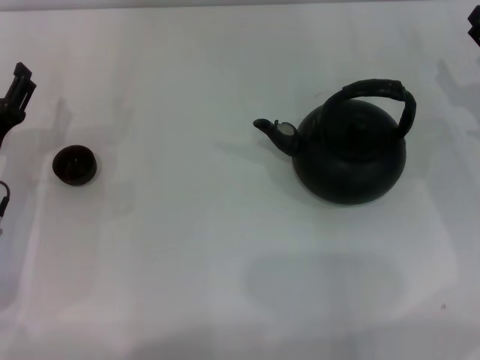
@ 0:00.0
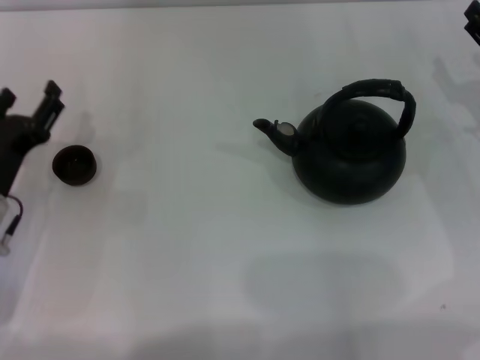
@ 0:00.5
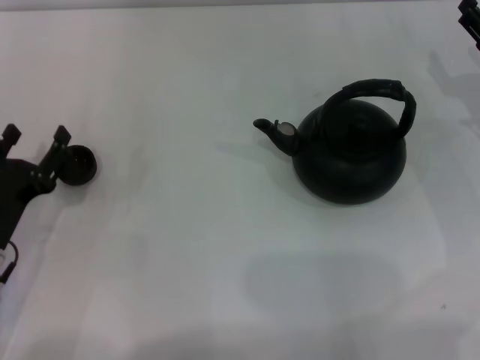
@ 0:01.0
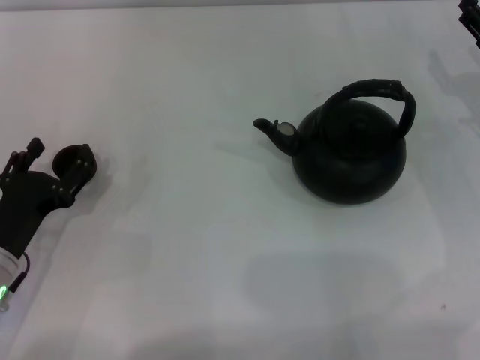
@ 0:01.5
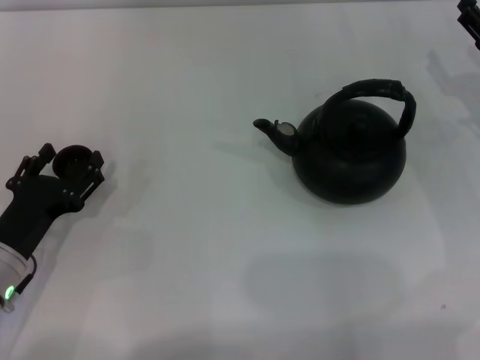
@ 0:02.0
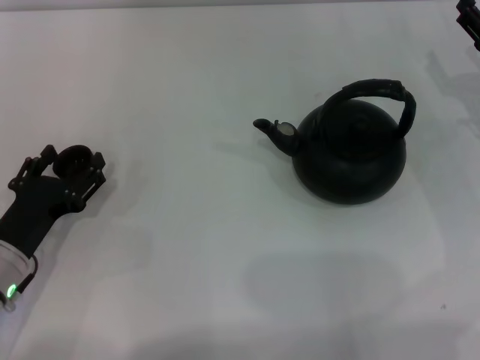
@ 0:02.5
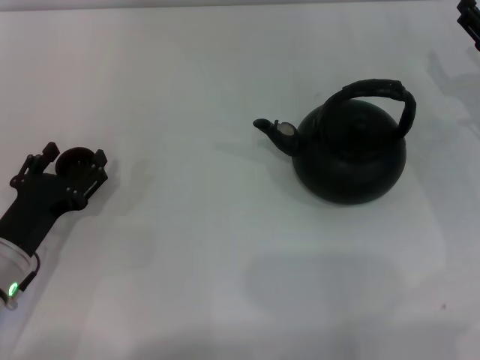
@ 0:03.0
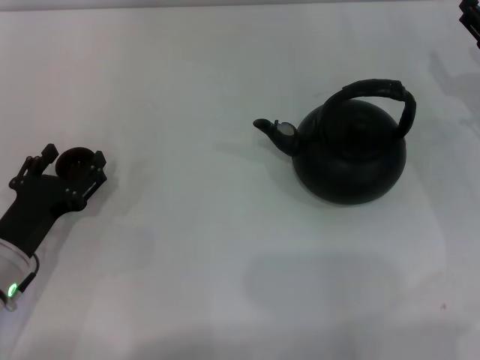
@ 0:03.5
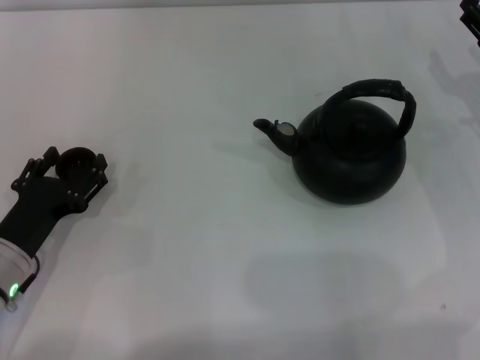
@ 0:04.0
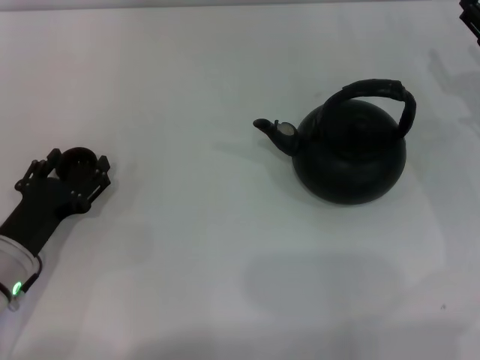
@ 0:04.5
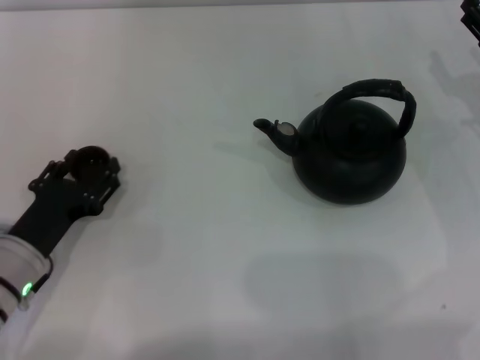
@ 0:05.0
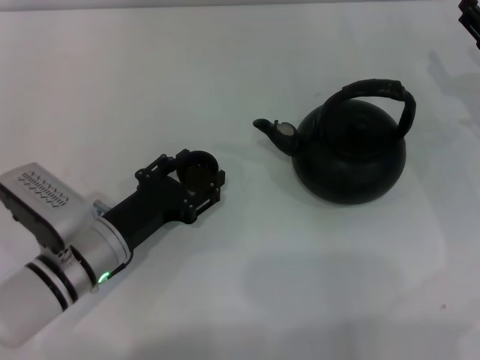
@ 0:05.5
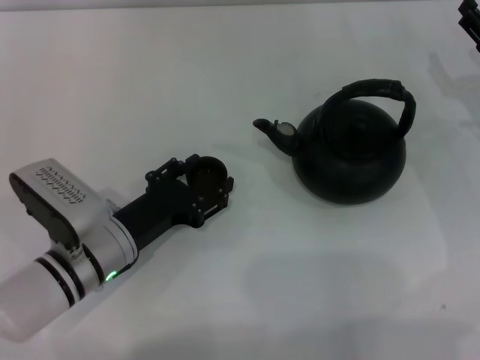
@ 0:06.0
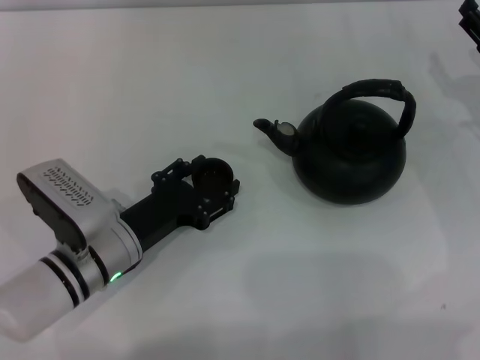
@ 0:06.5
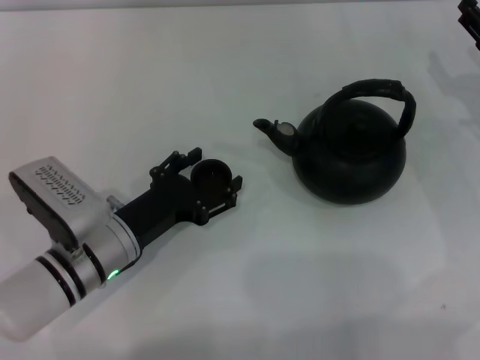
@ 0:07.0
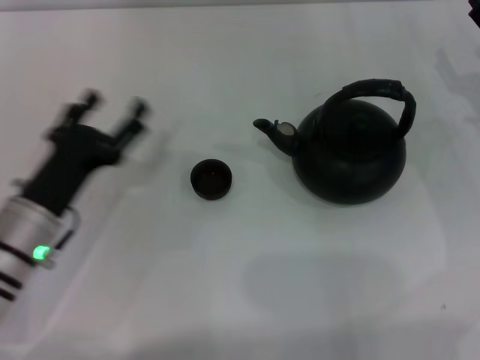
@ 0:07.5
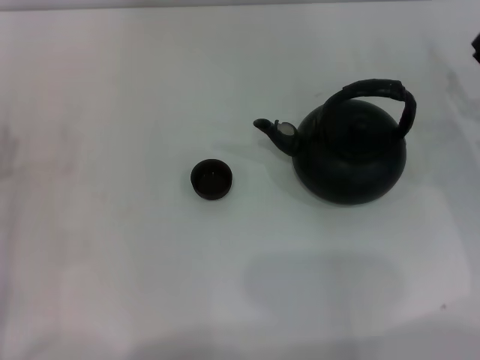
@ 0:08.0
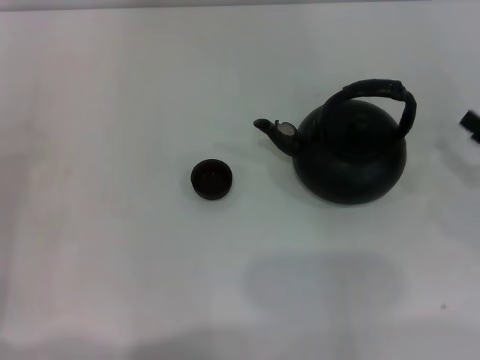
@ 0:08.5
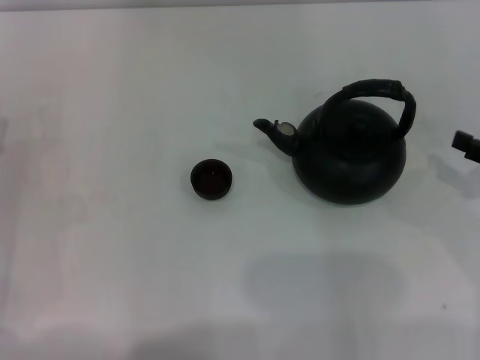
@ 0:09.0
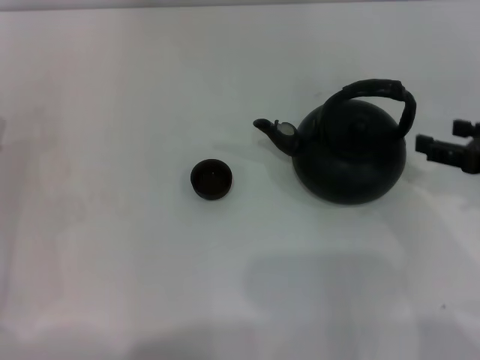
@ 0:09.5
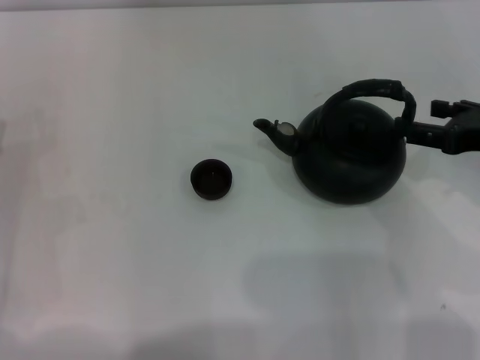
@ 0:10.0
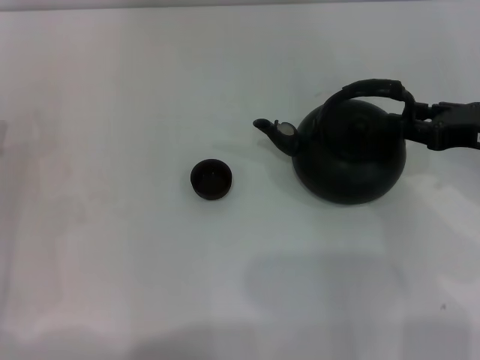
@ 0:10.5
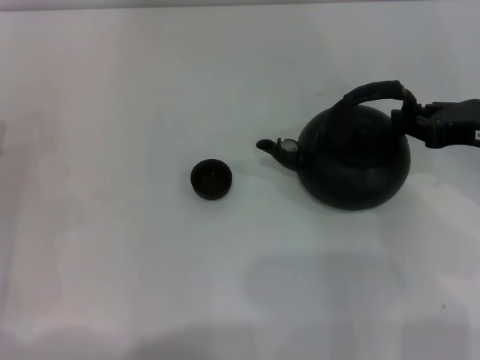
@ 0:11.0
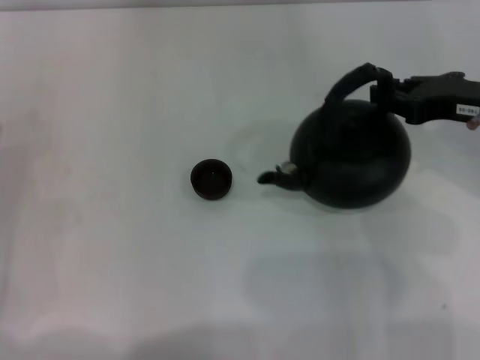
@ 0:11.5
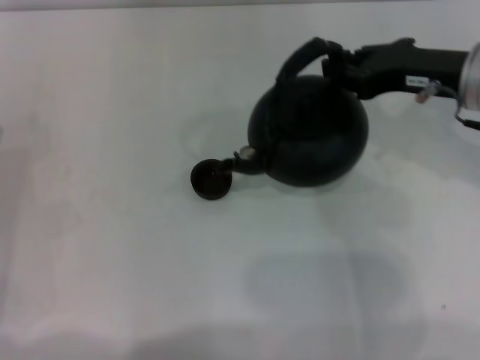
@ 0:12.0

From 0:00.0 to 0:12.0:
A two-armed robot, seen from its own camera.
Task of the whole recording: Grasp the handle of the teapot with one hand and pour tea into the teacup.
Step, from 0:00.0 to 0:05.0: Pick up the teacup with the left gripper.
Step, from 0:06.0 to 0:07.0: Place the teacup in the center of view with the left gripper.
Step, from 0:07.5 to 0:11.5: Pick up the teapot with the right gripper.
From 0:00.0 to 0:02.0: The left gripper heads backward, covering about 5 cm.
From 0:02.0 to 0:04.0: Neither gripper changes place.
From 0:04.0 to 0:06.0: The left gripper travels to the right by roughly 10 cm, and closes.
From 0:06.0 to 0:08.0: The left gripper is displaced to the left by about 15 cm, and opens.
From 0:08.0 to 0:10.0: The right gripper goes some 10 cm upward.
From 0:10.0 to 0:12.0: The right gripper is displaced to the left and forward by some 10 cm, and closes.

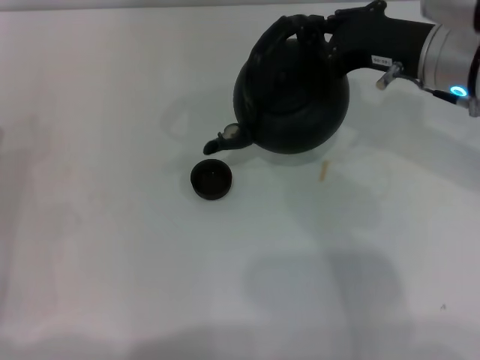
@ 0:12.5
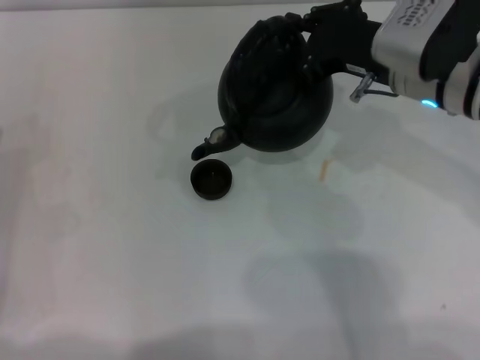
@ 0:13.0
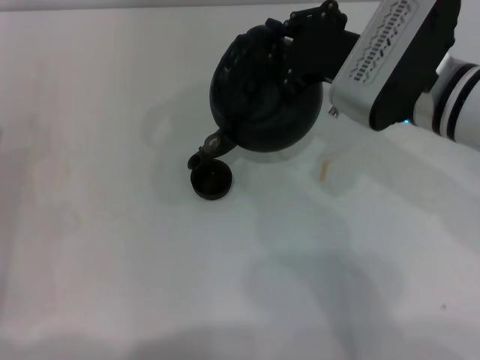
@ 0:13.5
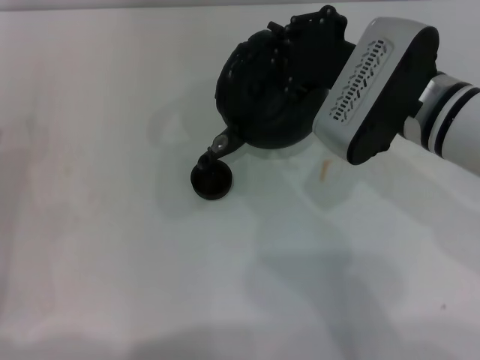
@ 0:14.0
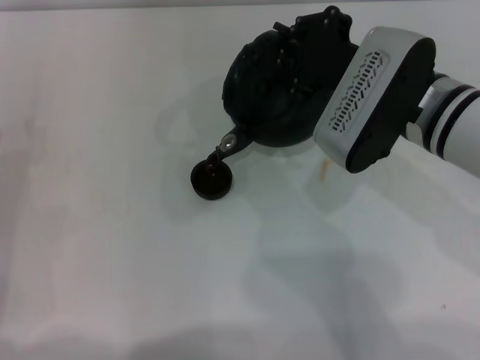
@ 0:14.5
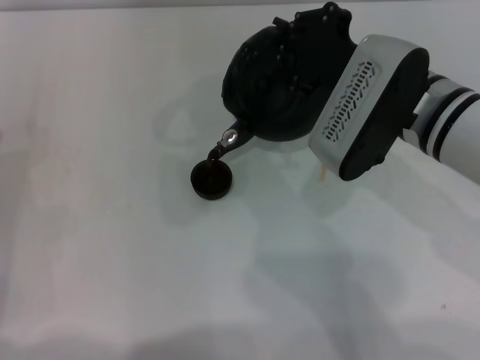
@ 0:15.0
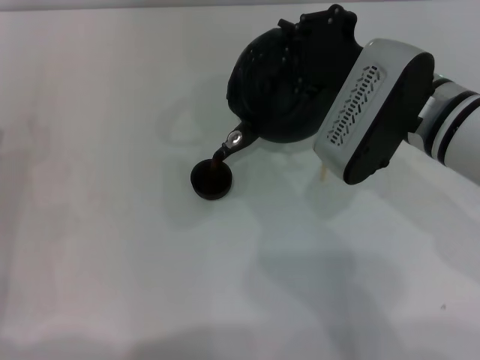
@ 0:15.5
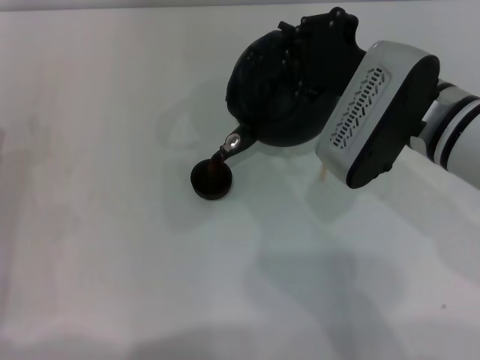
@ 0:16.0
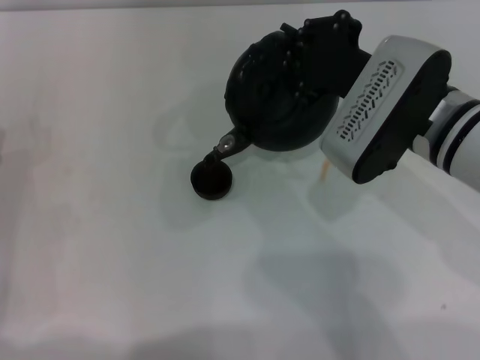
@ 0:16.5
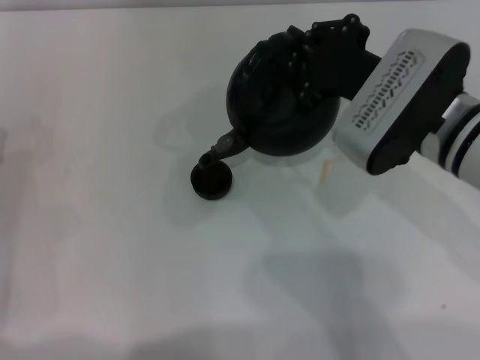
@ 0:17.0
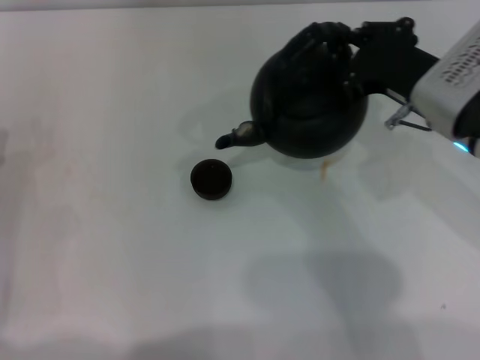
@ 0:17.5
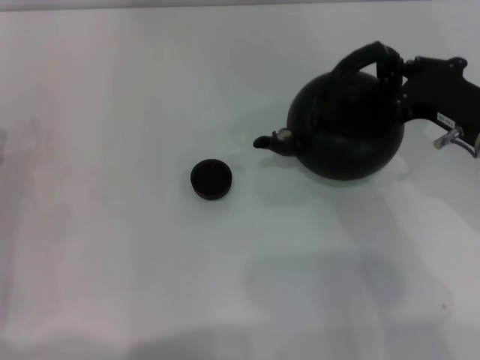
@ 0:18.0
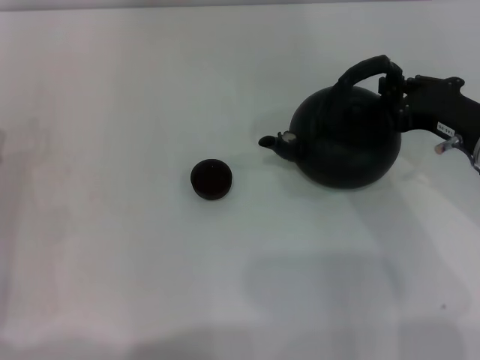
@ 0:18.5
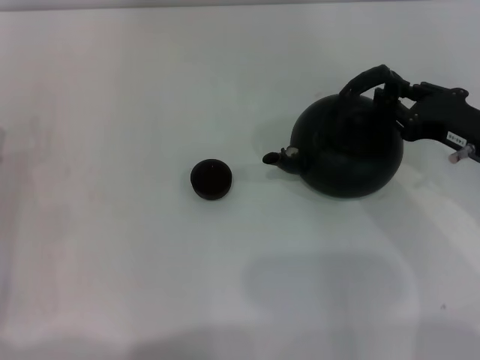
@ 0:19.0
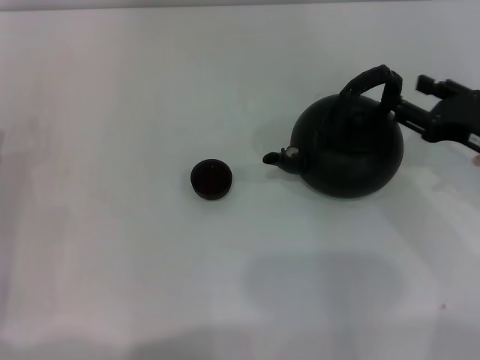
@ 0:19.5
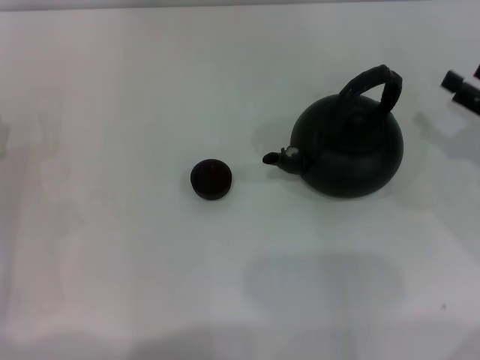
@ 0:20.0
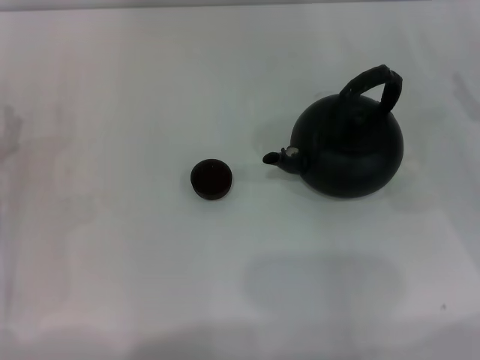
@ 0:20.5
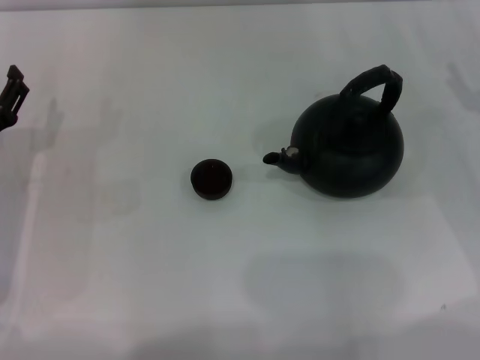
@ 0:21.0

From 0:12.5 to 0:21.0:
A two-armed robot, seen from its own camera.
Task of the whole recording: Grasp the handle of the teapot with one hand and pour tea into the teacup.
Step, from 0:12.5 to 0:17.0: Pour tea into the teacup with the right gripper.
Step, from 0:17.5 to 0:19.5: Put down the teapot with the right gripper.
From 0:12.5 to 0:14.5: The right gripper ends up roughly 5 cm from where it was.
From 0:14.5 to 0:16.5: Both grippers stay about where they are.
From 0:16.5 to 0:19.0: The right gripper heads to the right and downward, covering about 15 cm.
From 0:19.0 to 0:21.0: The right gripper moves to the right, approximately 5 cm, and opens its fingers.
